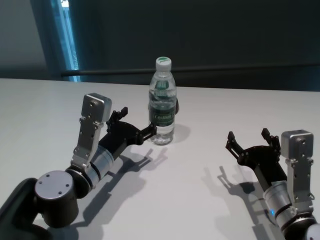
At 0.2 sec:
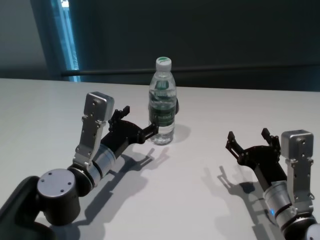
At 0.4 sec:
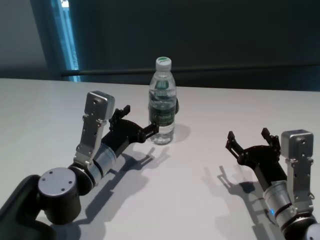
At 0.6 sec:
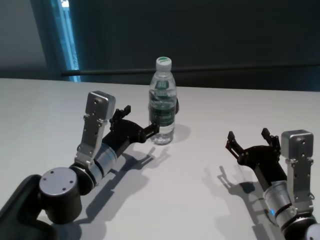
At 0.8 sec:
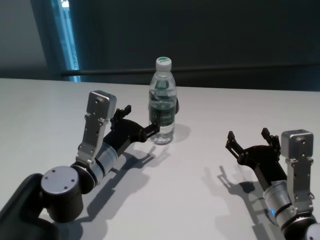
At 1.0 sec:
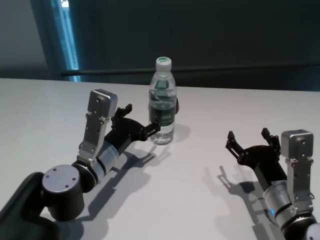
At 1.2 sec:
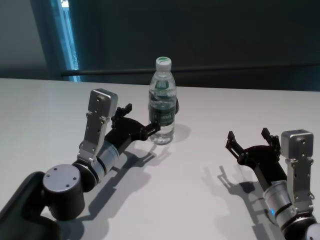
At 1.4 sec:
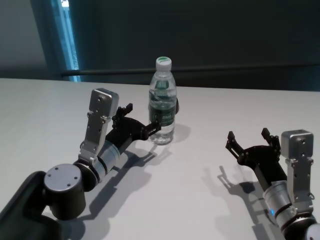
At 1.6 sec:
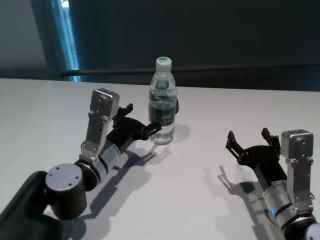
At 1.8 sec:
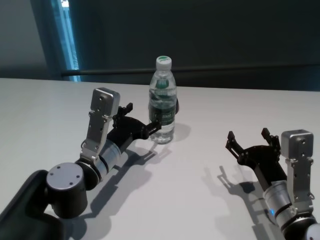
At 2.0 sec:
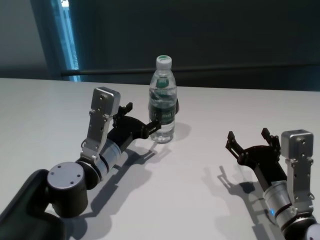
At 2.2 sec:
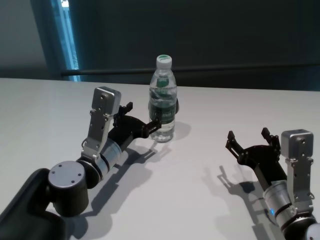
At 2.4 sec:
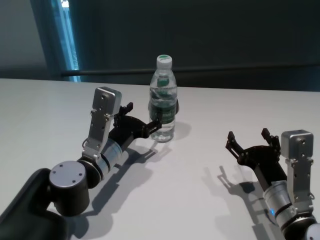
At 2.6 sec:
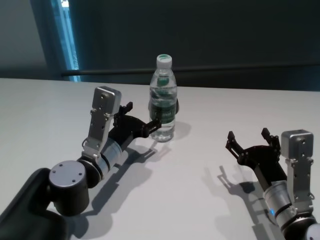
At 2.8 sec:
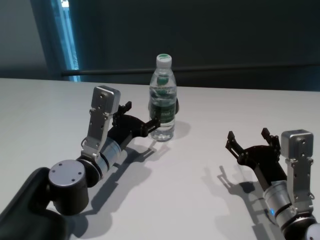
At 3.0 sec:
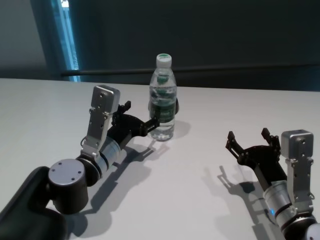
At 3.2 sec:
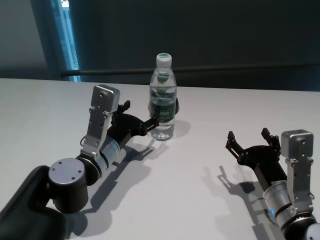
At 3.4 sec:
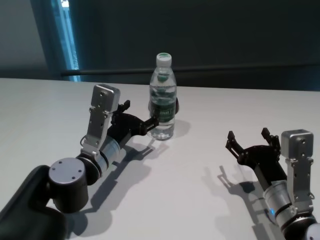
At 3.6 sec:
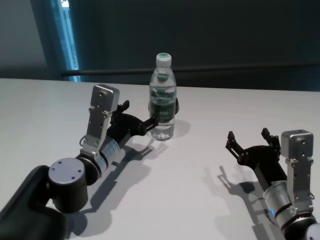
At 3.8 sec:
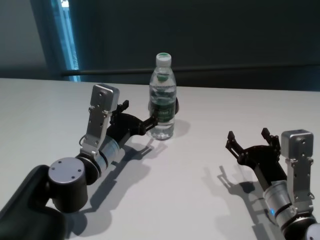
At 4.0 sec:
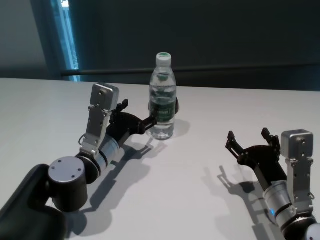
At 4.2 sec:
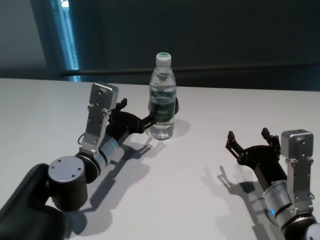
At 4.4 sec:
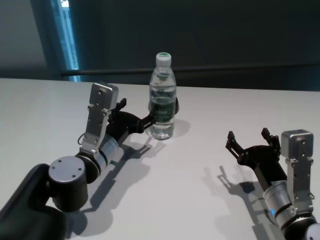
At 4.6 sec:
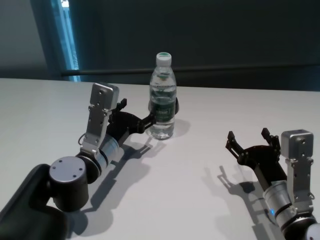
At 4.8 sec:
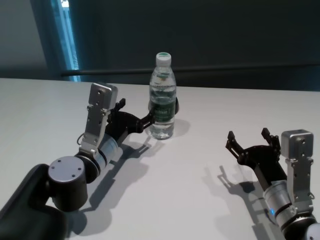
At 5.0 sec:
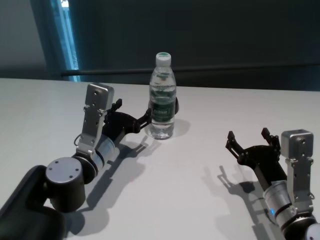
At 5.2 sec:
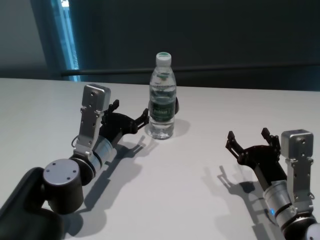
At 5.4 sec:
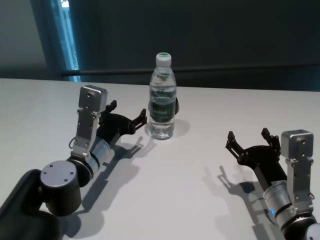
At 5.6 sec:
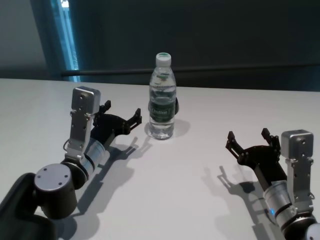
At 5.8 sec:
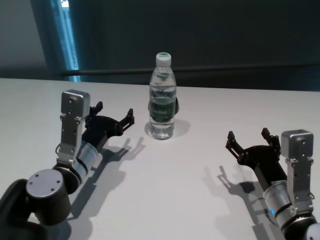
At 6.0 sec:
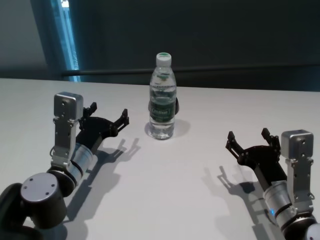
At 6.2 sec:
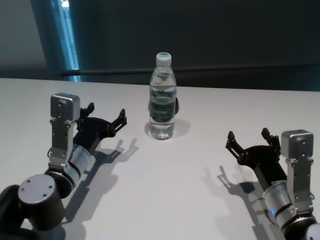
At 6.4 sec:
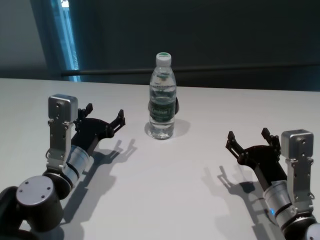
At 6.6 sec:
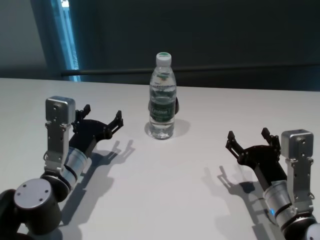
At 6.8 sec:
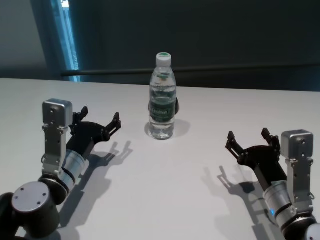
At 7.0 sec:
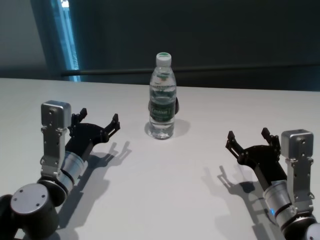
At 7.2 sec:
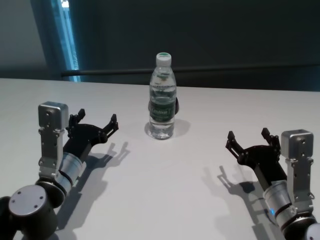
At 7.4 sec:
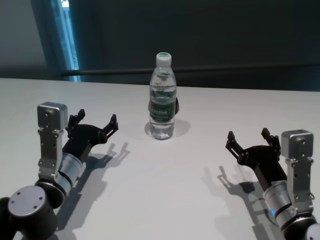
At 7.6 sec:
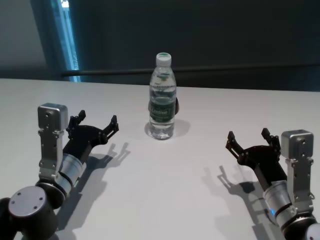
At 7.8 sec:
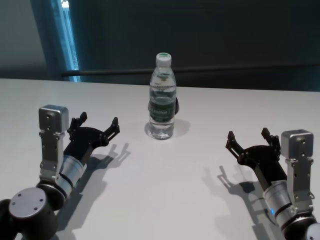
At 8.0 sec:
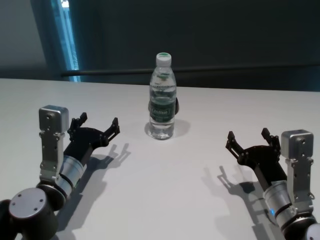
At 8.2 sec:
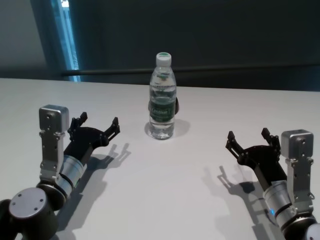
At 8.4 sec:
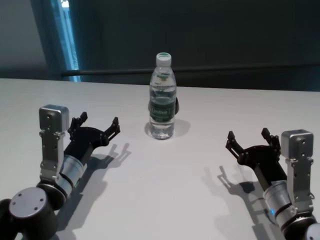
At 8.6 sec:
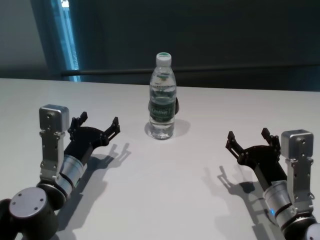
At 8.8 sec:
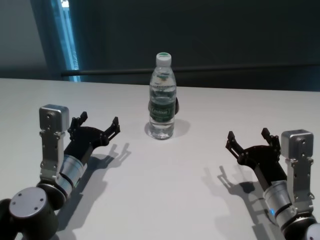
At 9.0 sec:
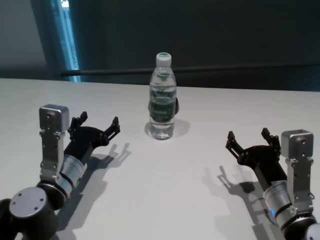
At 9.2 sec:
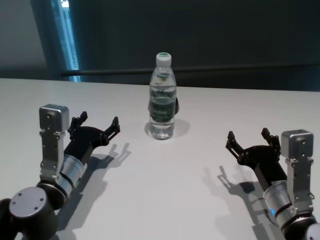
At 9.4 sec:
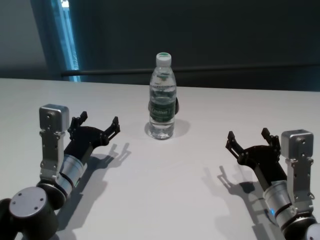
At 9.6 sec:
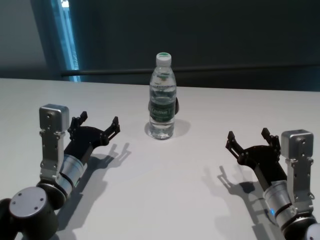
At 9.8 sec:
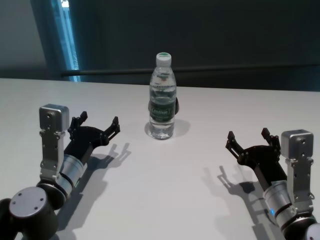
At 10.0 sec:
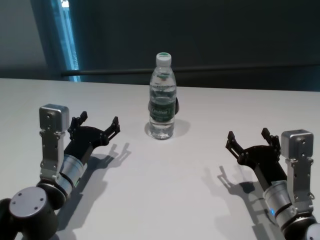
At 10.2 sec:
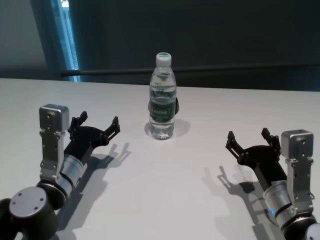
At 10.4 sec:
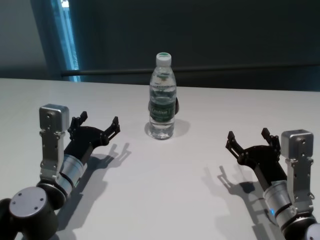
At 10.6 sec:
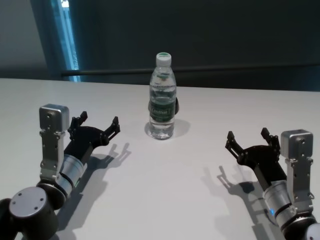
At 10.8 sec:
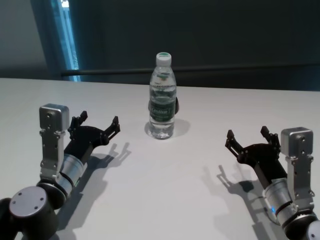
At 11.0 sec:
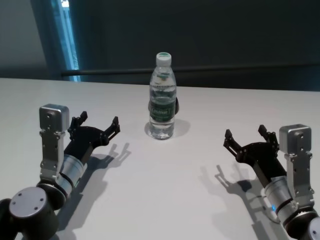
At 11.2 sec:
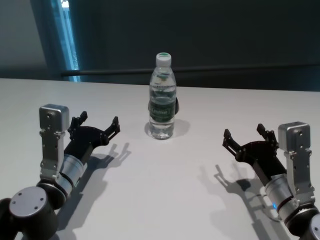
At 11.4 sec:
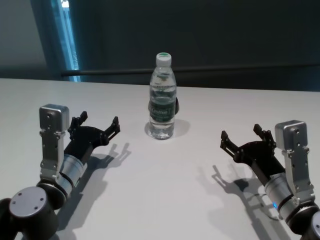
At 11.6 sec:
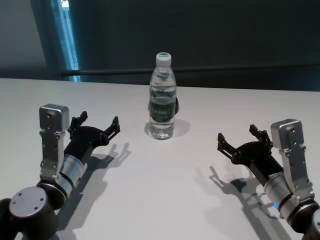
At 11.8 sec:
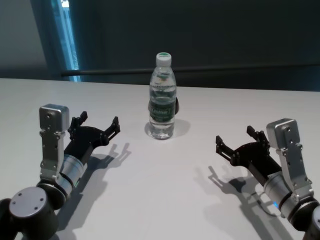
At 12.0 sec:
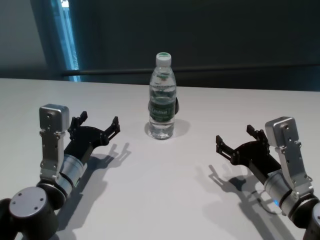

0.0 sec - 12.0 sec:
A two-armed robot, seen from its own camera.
Task of the whole recording: return to a safe position after touching an obstacle with your arm on the white table.
Step, 0.0 sec - 5.4 sec: Touch the bottle with left gripper.

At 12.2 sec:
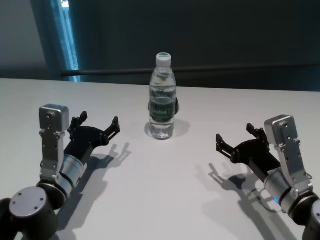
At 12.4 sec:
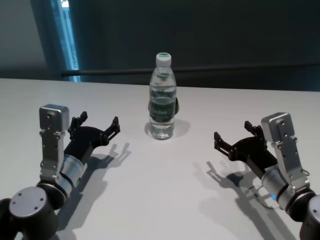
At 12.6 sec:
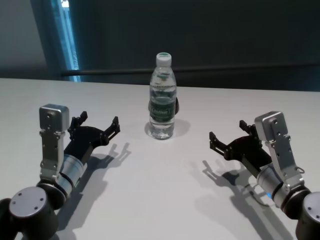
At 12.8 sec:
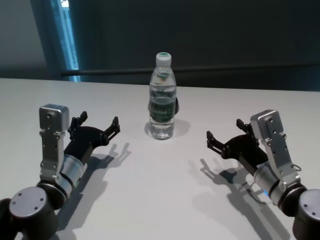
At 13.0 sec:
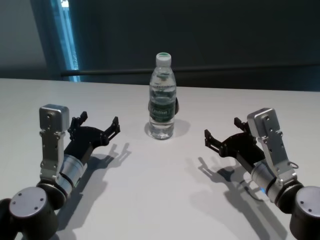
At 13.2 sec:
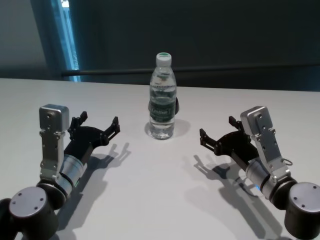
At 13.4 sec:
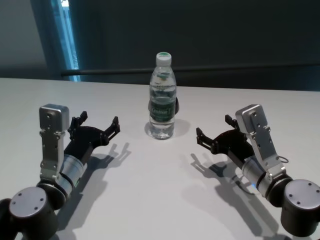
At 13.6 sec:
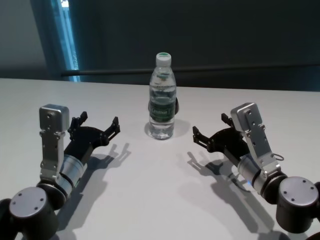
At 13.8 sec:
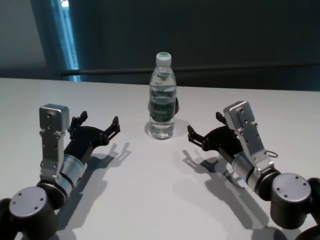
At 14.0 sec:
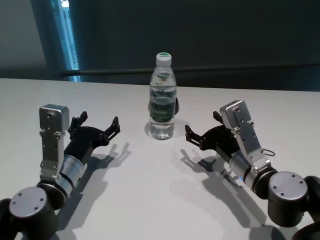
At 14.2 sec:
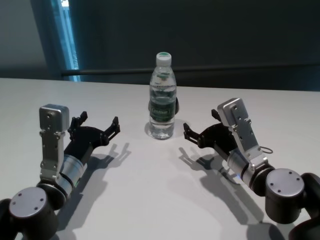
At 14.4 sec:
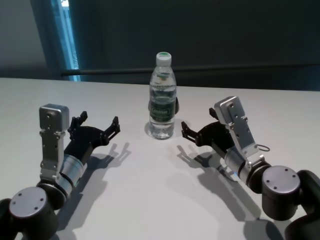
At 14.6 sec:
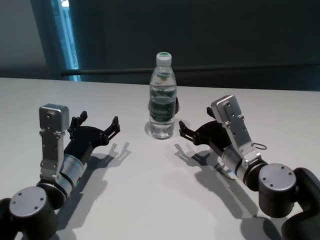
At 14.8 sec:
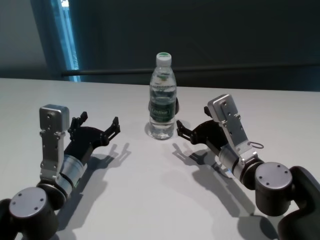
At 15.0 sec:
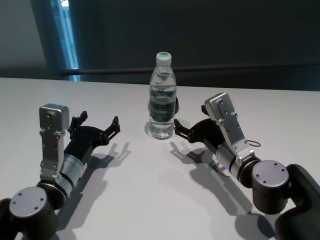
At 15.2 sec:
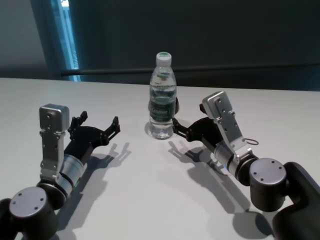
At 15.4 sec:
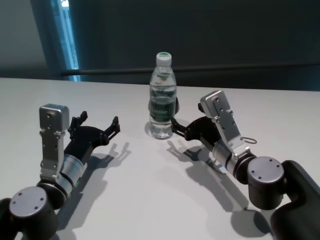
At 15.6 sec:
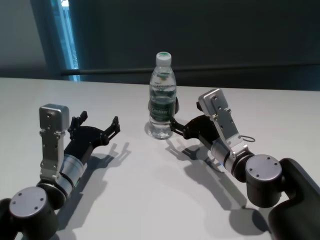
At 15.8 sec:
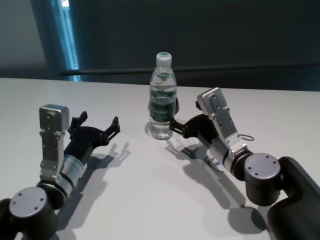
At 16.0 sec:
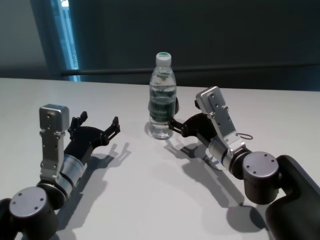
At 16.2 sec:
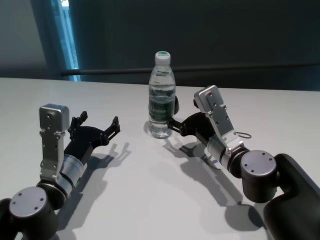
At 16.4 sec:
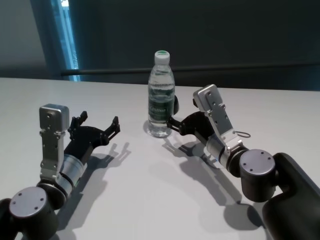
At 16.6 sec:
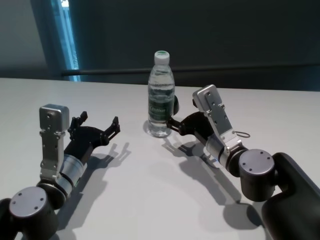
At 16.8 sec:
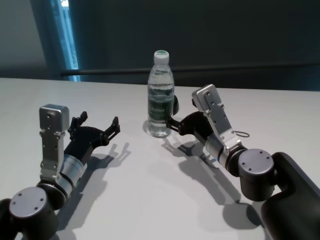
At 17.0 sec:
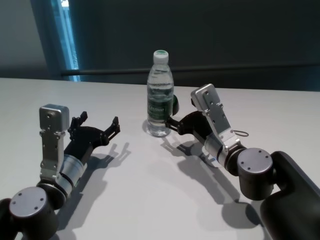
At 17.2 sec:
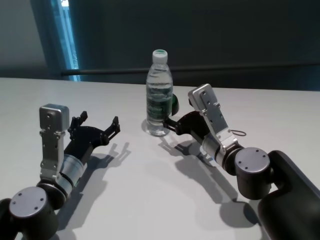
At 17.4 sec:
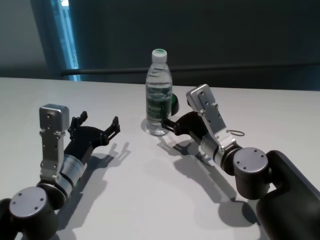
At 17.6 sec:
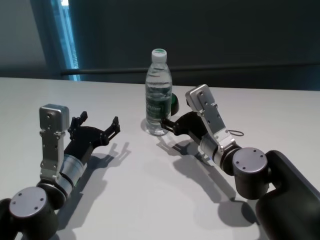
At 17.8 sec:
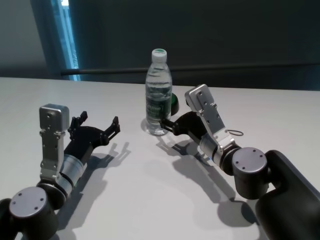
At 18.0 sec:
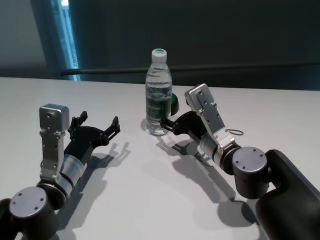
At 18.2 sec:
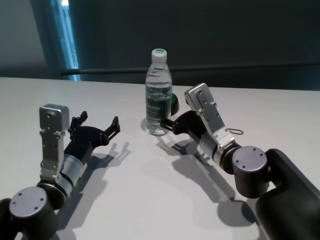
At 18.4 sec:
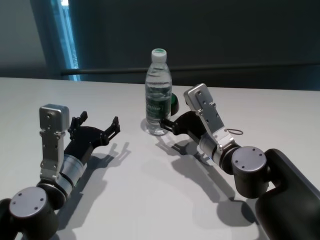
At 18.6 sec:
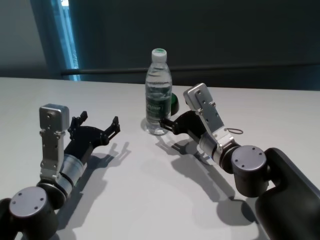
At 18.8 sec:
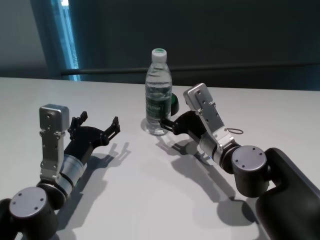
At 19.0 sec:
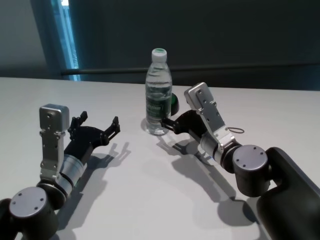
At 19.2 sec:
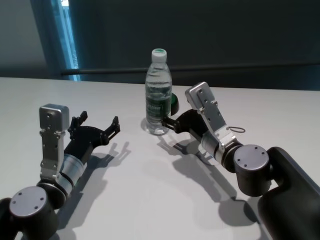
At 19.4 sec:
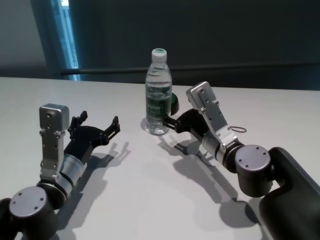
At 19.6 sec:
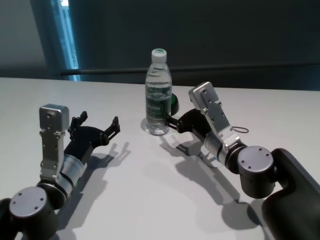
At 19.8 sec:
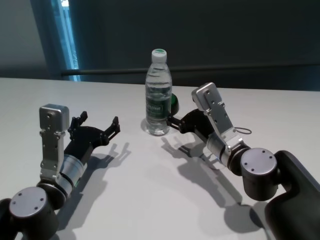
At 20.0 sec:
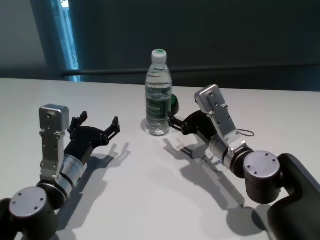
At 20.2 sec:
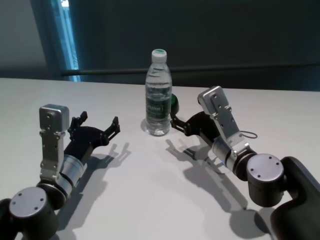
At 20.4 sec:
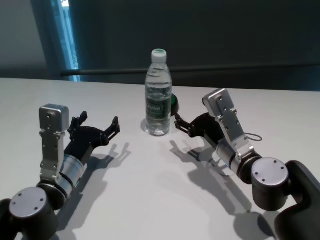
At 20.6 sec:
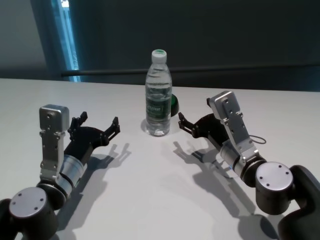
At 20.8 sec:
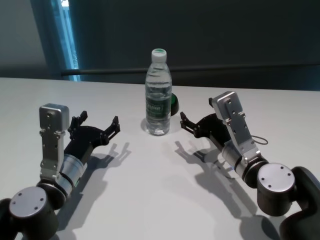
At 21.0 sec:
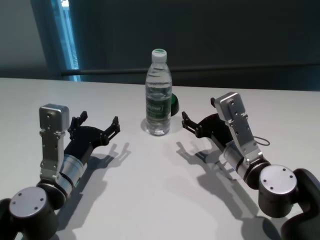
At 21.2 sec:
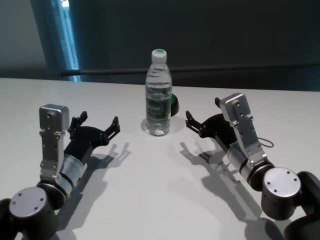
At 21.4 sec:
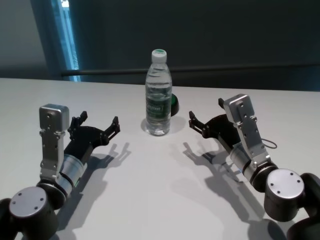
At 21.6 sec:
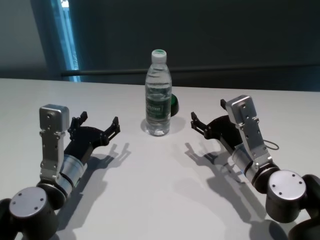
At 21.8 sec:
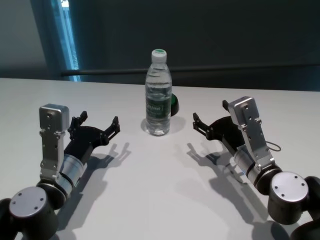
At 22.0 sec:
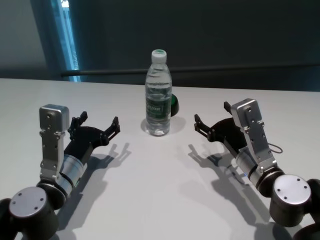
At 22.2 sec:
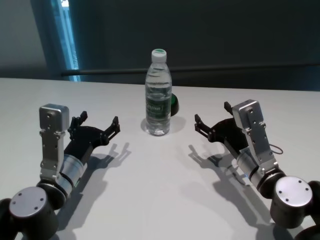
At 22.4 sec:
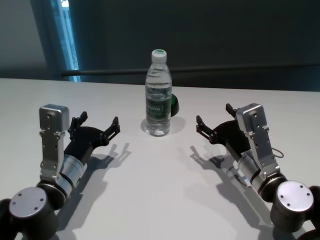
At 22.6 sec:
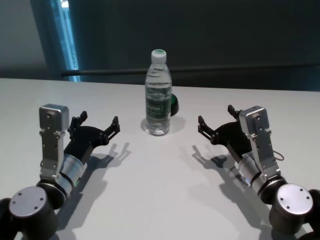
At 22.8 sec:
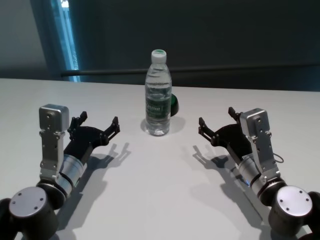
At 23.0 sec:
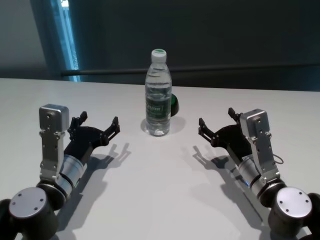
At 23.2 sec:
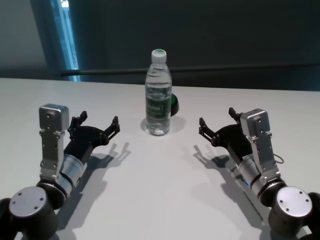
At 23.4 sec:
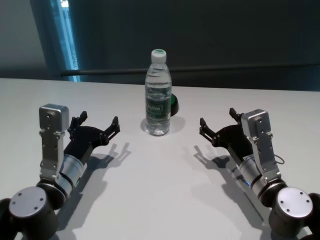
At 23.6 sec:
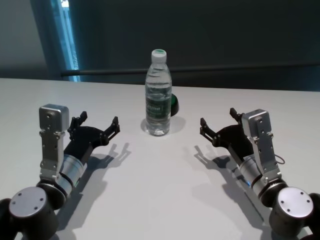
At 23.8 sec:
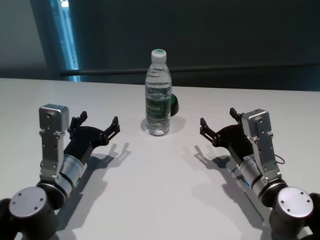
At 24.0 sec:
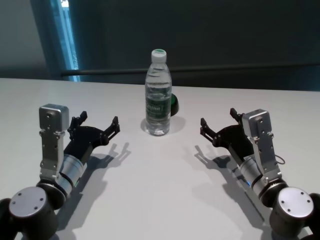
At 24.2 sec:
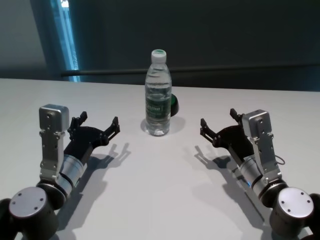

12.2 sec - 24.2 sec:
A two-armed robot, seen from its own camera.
Task of the whole recording: return to a safe position after touching an obstacle with your arm on the white table.
Step, 12.2 sec - 20.4 sec: Touch the bottle with right gripper.
